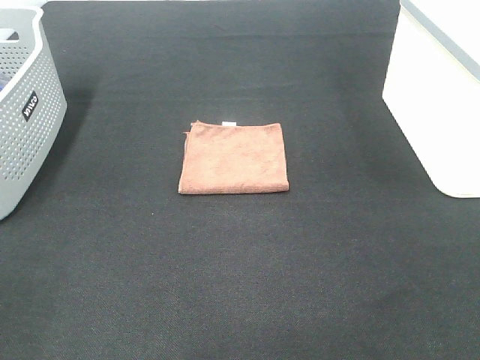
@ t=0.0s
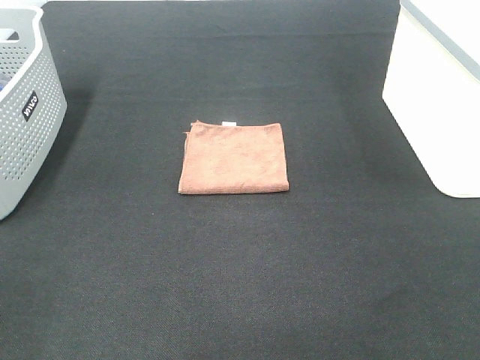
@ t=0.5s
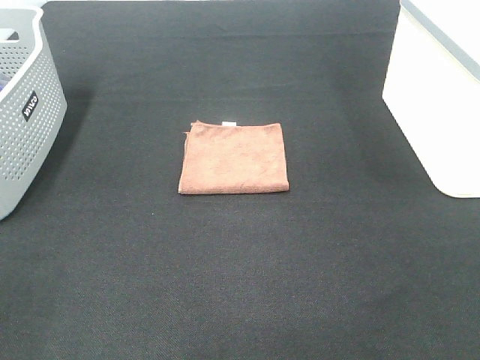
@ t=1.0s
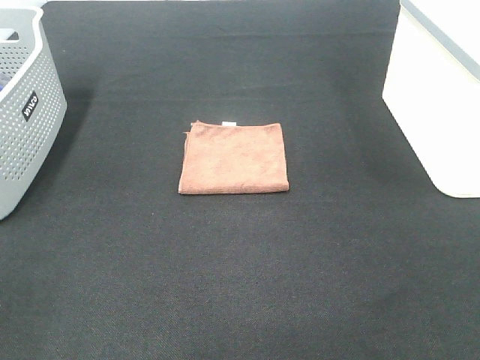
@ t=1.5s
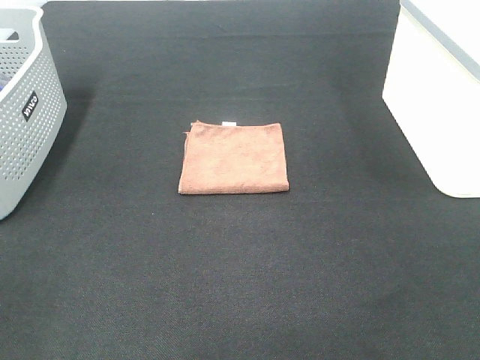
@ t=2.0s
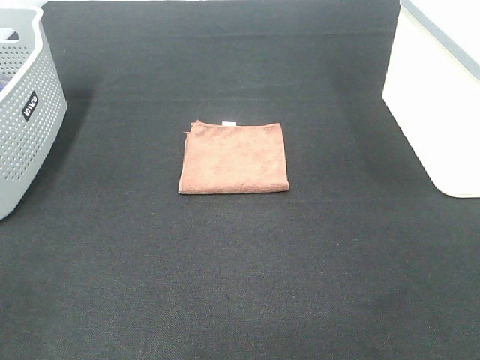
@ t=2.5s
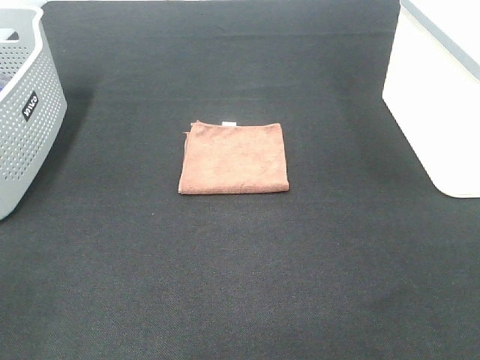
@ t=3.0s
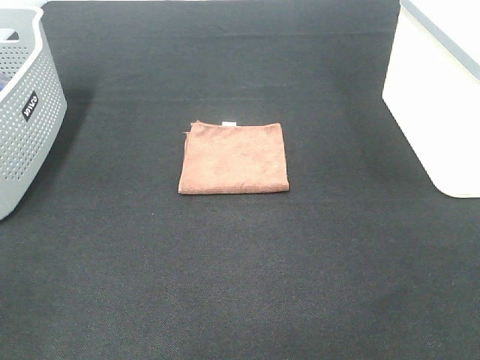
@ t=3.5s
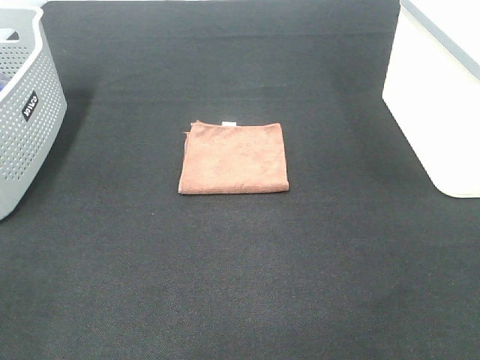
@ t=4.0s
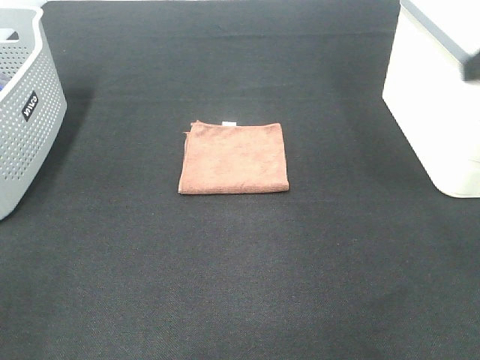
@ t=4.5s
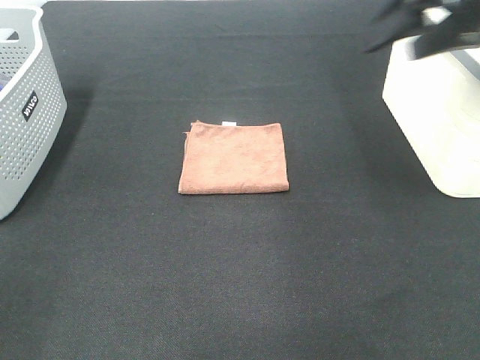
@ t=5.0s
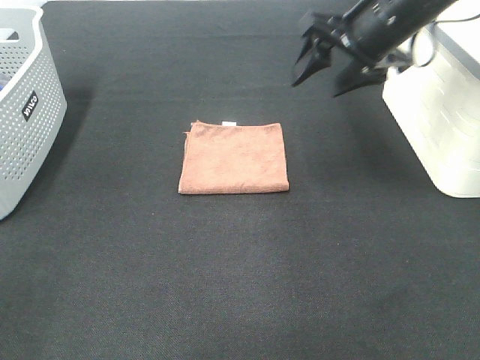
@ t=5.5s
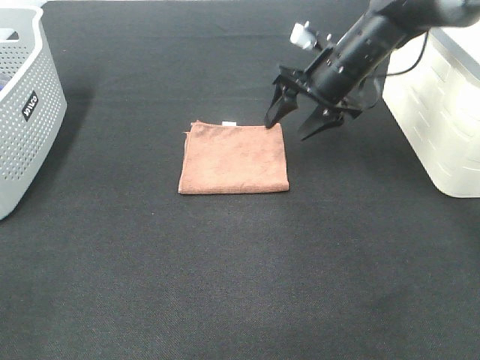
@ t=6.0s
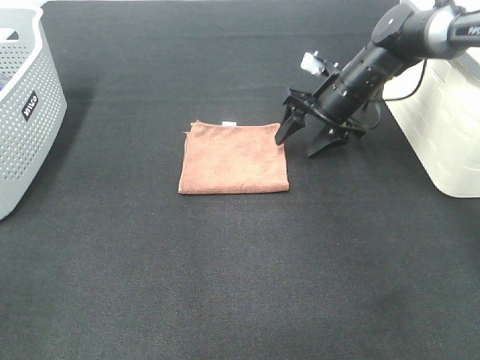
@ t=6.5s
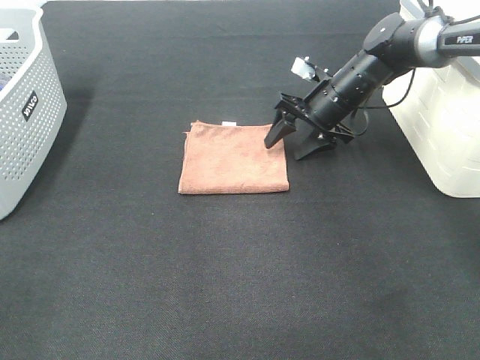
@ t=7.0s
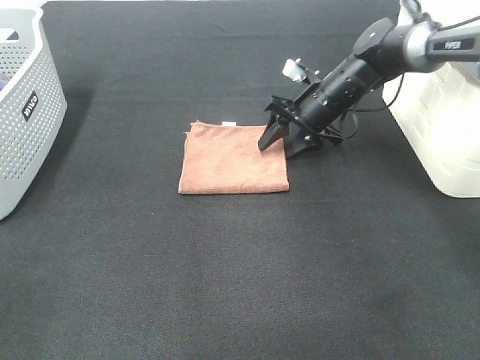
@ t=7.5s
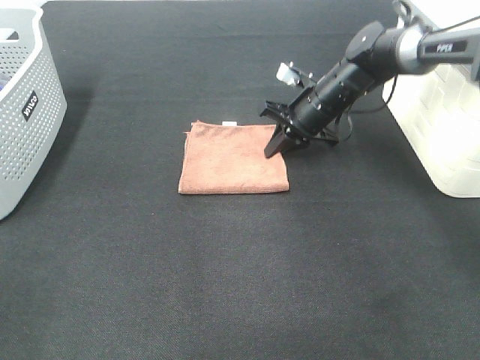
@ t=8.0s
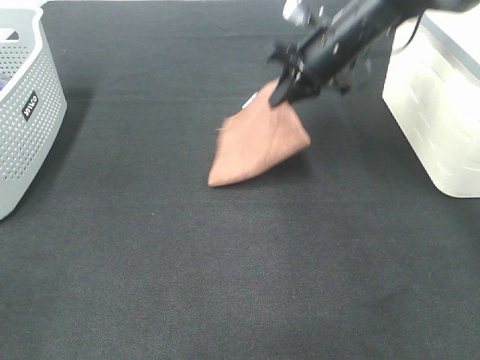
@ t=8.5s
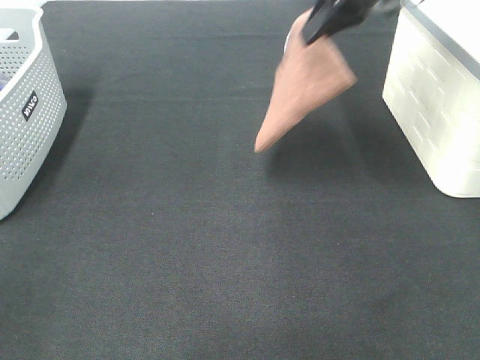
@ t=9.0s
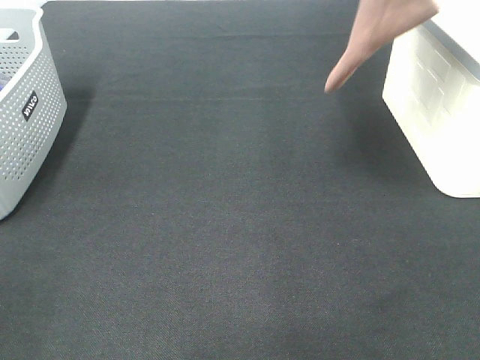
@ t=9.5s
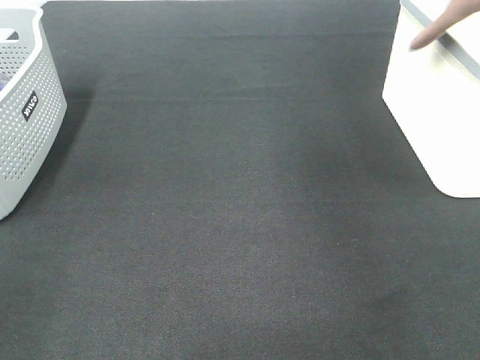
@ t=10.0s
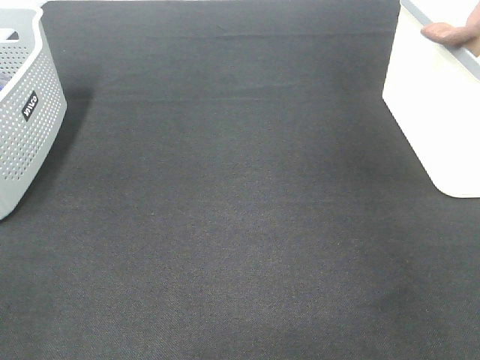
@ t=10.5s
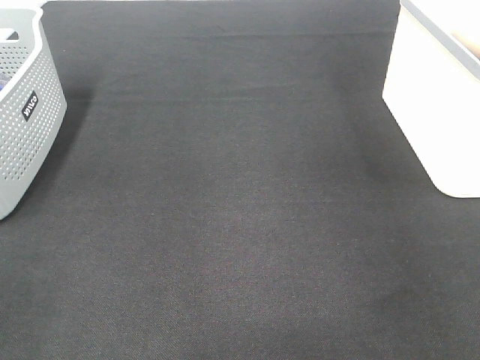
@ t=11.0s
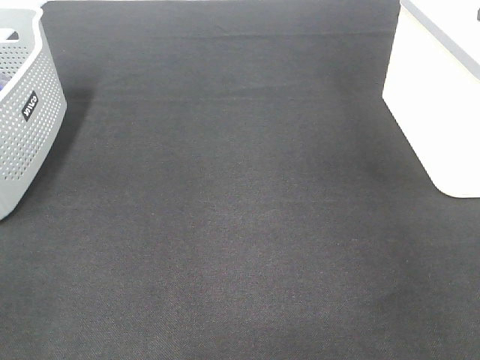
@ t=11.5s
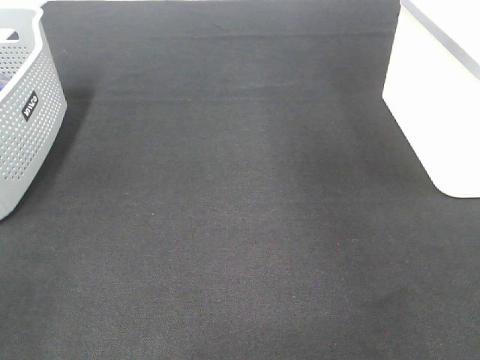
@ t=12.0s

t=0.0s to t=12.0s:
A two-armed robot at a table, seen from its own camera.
Step, t=0.0s to t=8.0s: Right hand: grab the folded brown towel.
Step, t=8.5s to t=11.0s: Right hand: place the brown towel in right basket.
t=0.0s to t=2.0s: Both grippers stay about where they are.
t=4.0s to t=6.0s: The right gripper is displaced forward by approximately 40 cm.
t=6.0s to t=8.0s: The right gripper travels downward by roughly 5 cm, and closes its fingers.
t=8.0s to t=10.0s: The right gripper heads upward and to the right, covering approximately 35 cm.
t=10.0s to t=12.0s: The right gripper travels downward and back again, approximately 10 cm each way, and opens up.

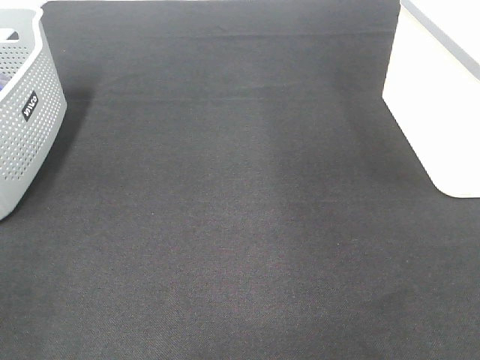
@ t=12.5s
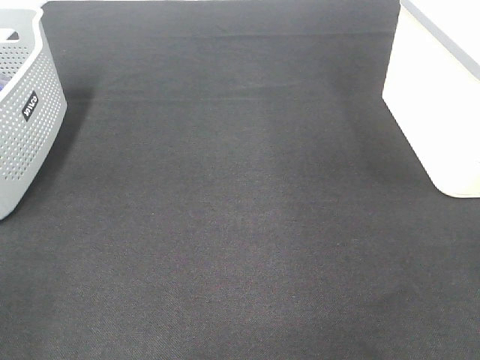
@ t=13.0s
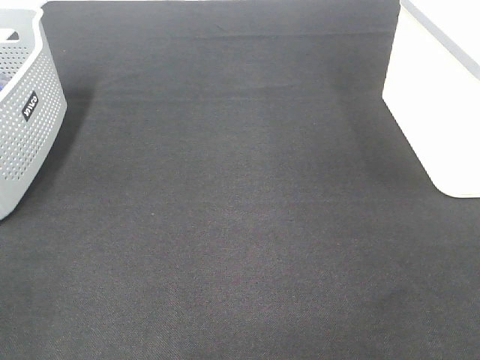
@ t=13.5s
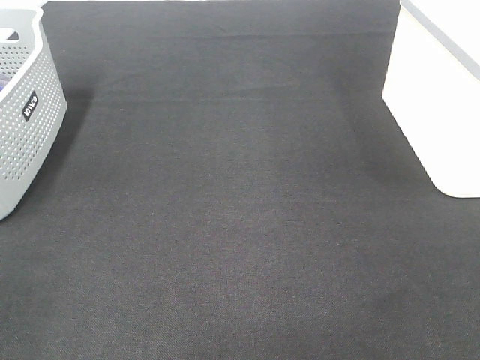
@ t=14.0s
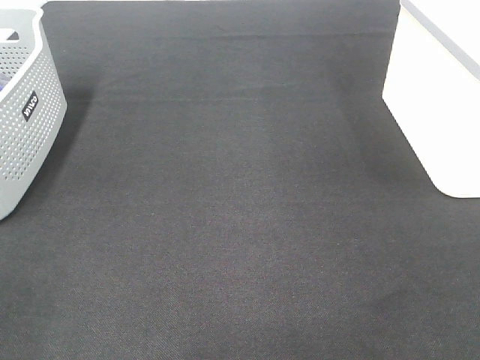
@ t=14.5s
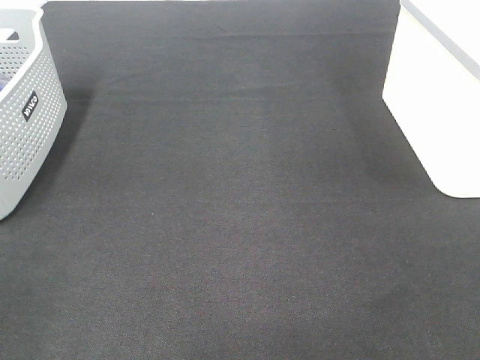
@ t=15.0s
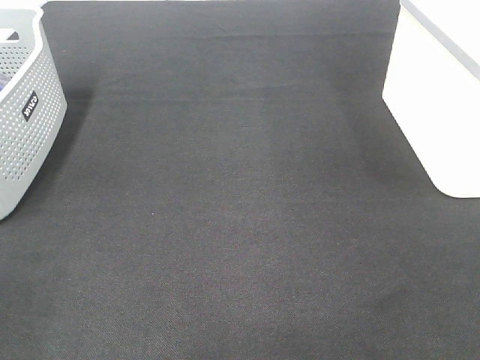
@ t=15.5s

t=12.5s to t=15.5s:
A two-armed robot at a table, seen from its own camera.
t=14.0s to t=15.5s: Neither gripper changes place.

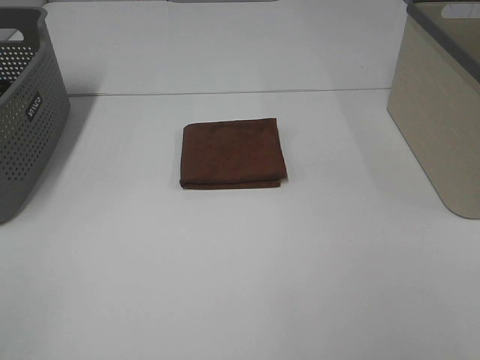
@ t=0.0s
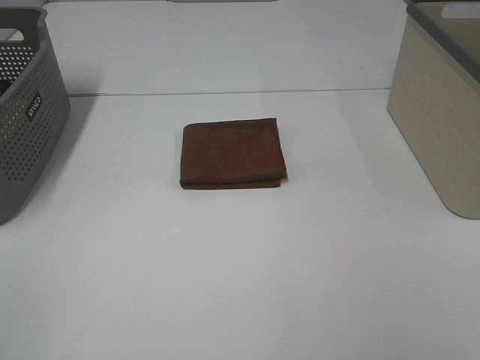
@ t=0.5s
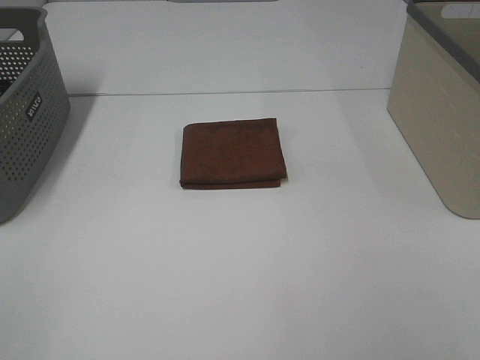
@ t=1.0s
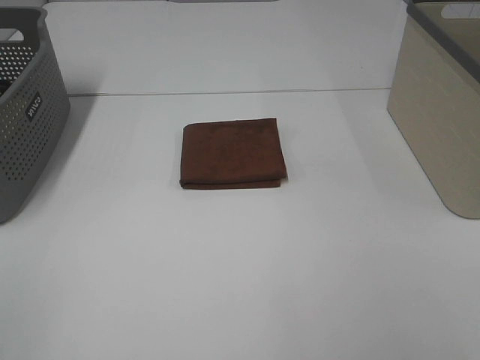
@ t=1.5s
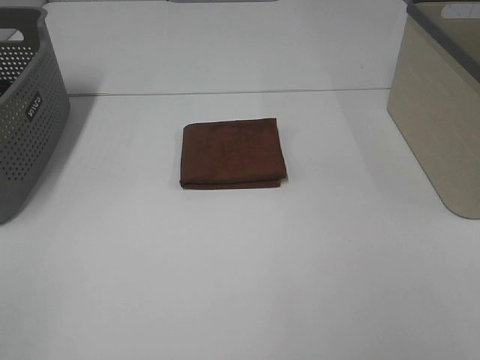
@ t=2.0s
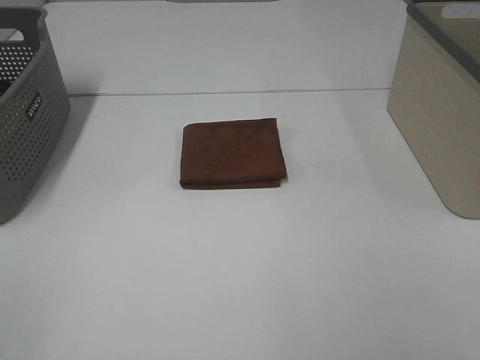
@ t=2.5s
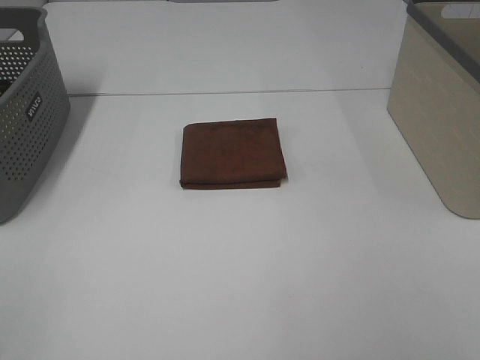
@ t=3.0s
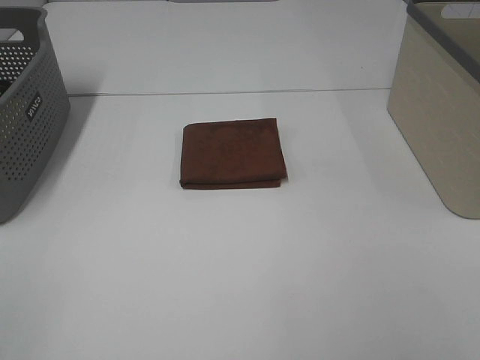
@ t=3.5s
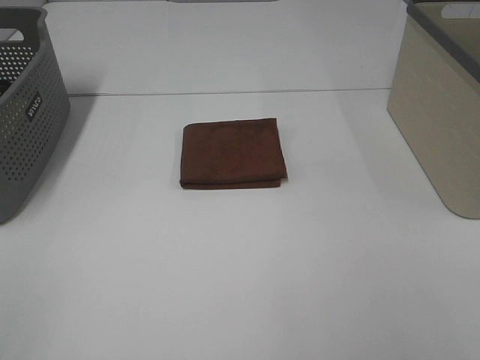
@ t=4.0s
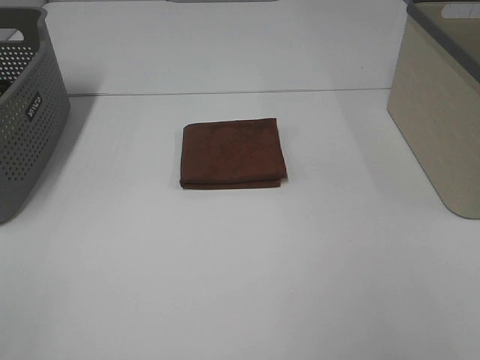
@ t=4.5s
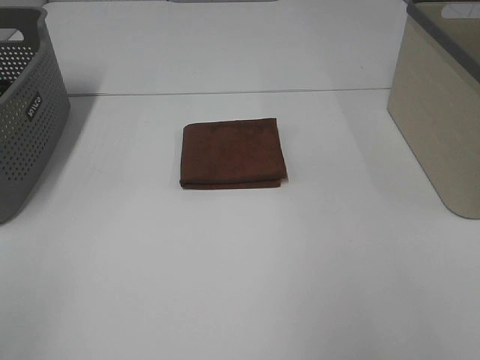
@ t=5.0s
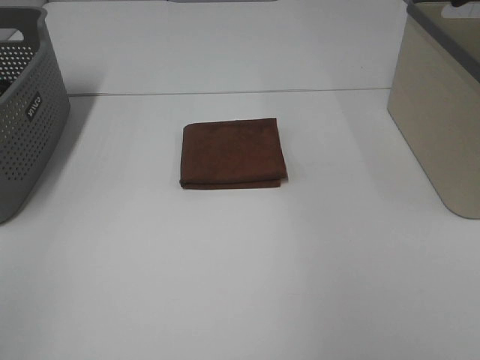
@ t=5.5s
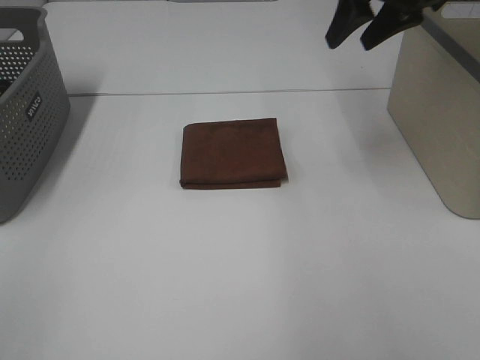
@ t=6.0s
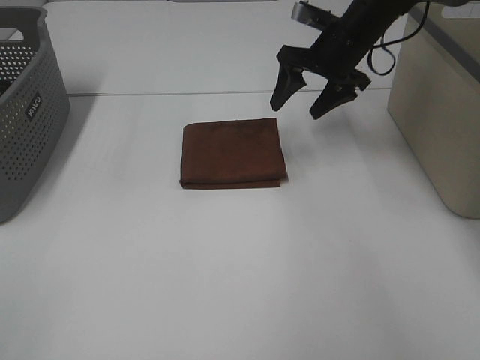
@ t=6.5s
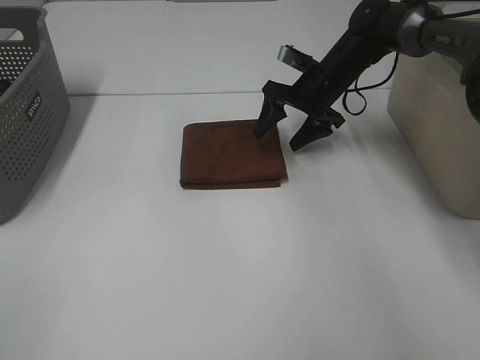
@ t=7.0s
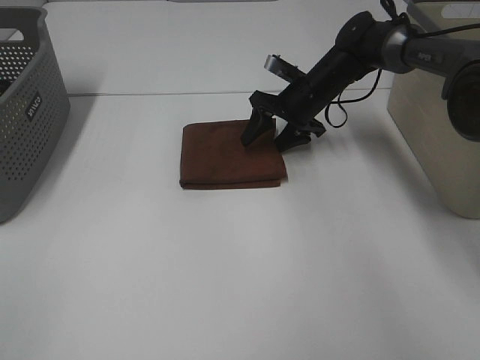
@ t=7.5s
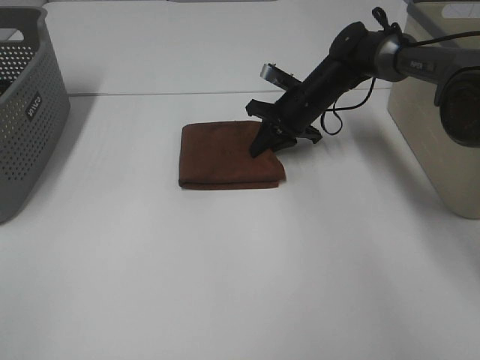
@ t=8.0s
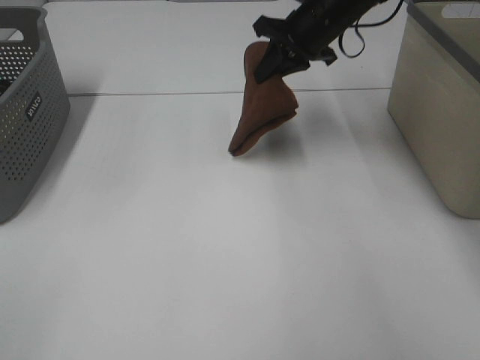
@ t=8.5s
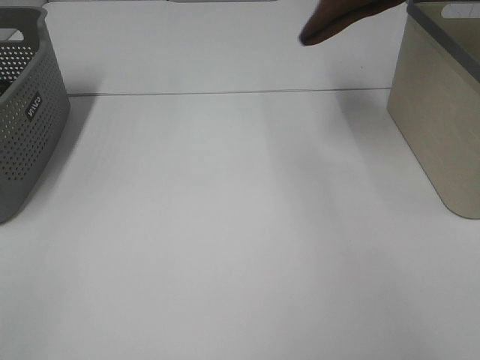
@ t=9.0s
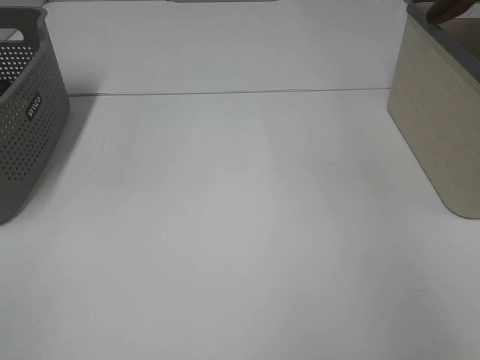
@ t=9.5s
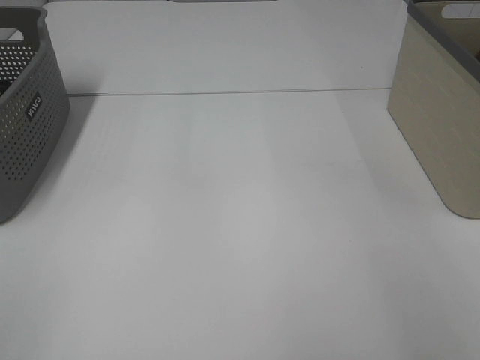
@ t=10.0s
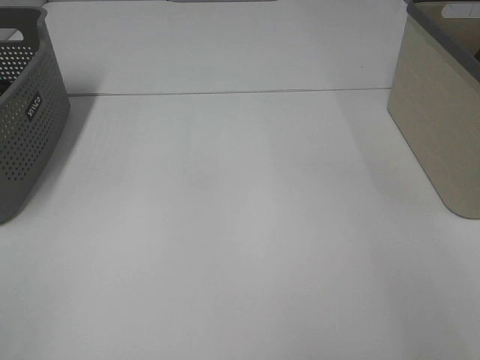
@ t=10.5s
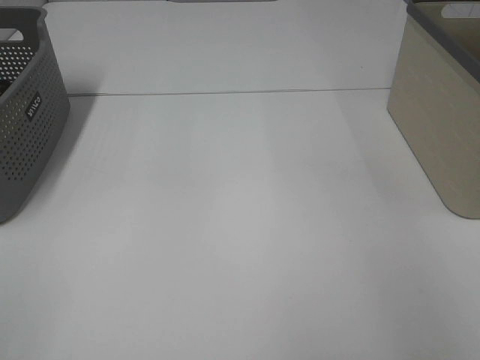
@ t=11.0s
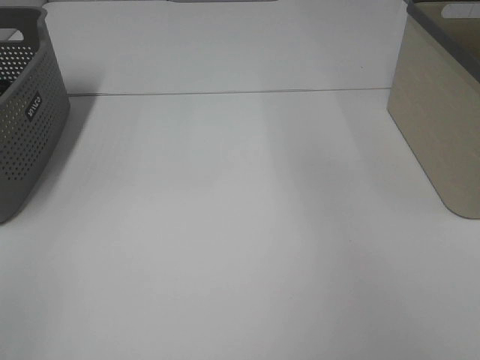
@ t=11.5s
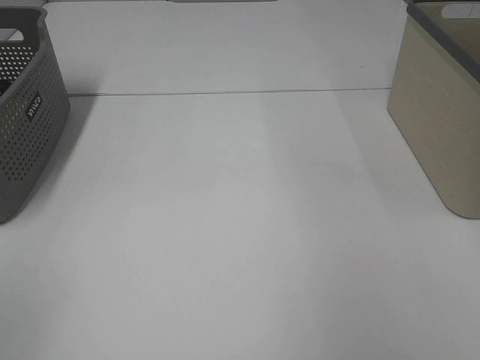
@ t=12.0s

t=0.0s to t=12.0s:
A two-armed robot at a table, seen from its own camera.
Step, t=0.0s to t=8.0s: Right hand: grab the folded brown towel.
Step, t=8.5s to t=10.5s: Right hand: place the brown towel in right basket.
t=0.0s to t=4.0s: Both grippers stay put.
t=4.0s to t=6.0s: The right gripper shifts some 40 cm forward.
t=6.0s to t=8.0s: The right gripper heads downward, covering approximately 20 cm, and closes its fingers.
t=8.0s to t=10.0s: The right gripper is displaced to the right and upward by about 40 cm.
